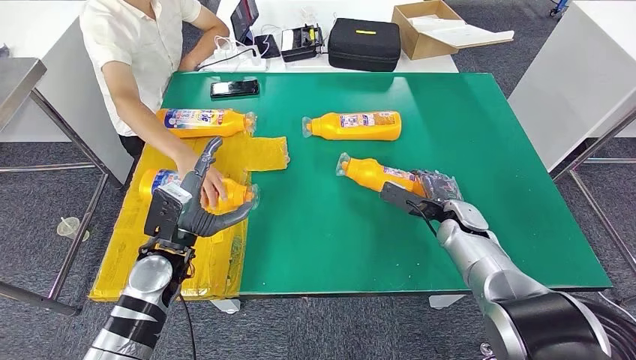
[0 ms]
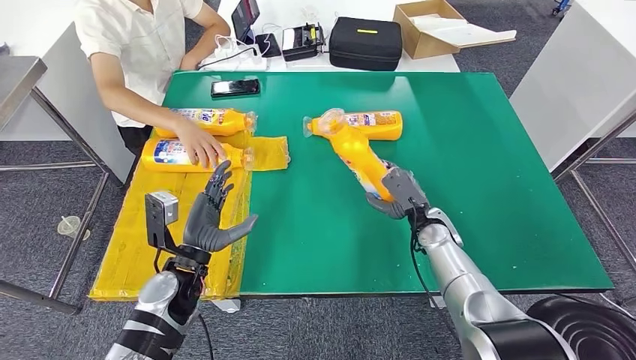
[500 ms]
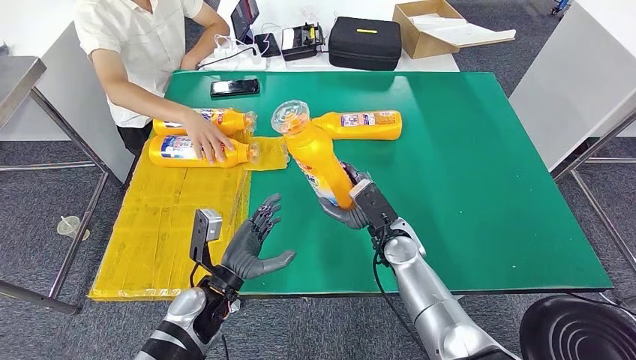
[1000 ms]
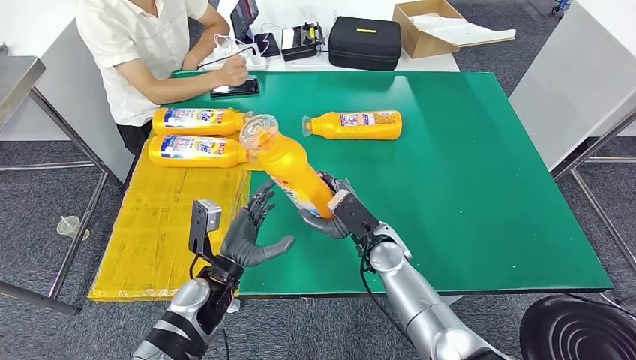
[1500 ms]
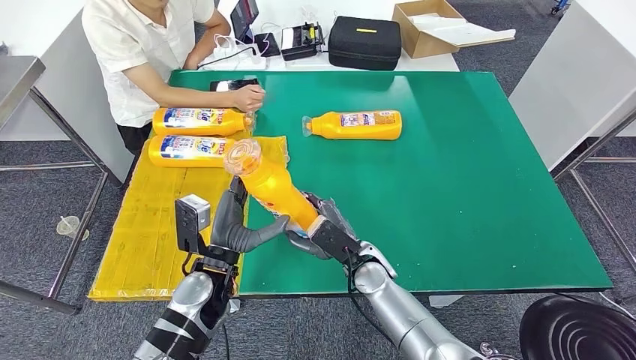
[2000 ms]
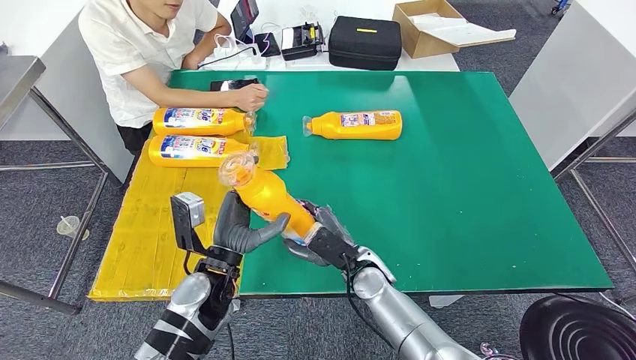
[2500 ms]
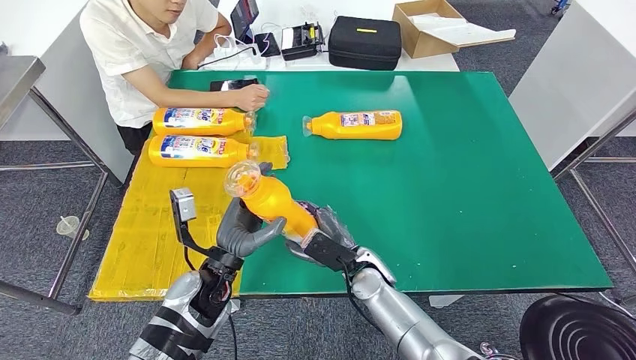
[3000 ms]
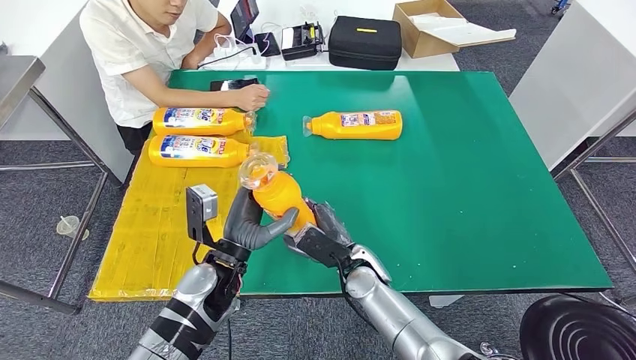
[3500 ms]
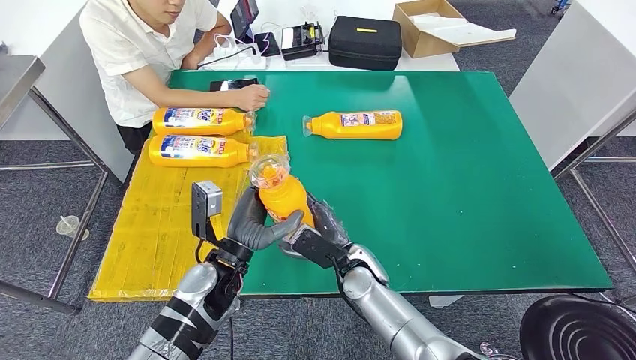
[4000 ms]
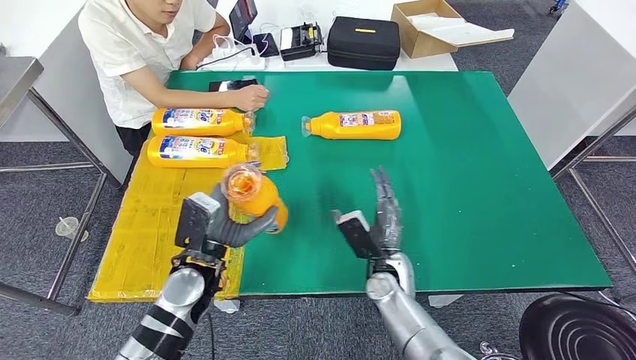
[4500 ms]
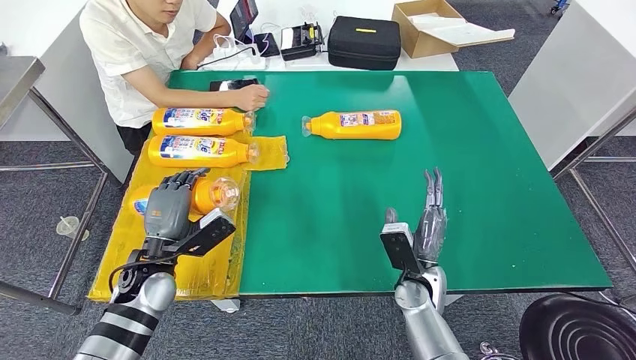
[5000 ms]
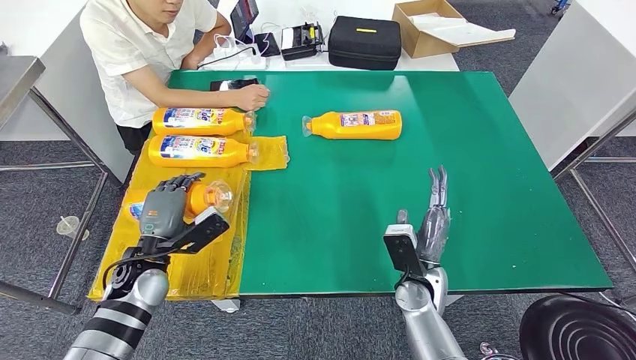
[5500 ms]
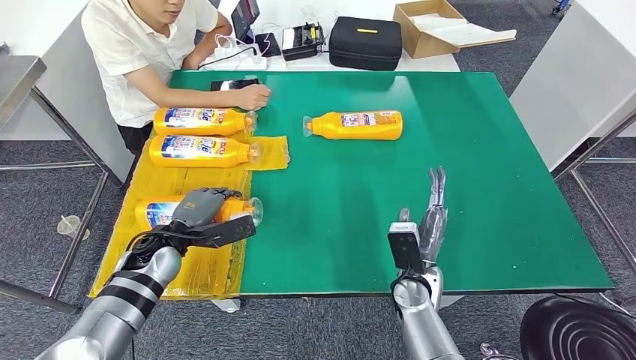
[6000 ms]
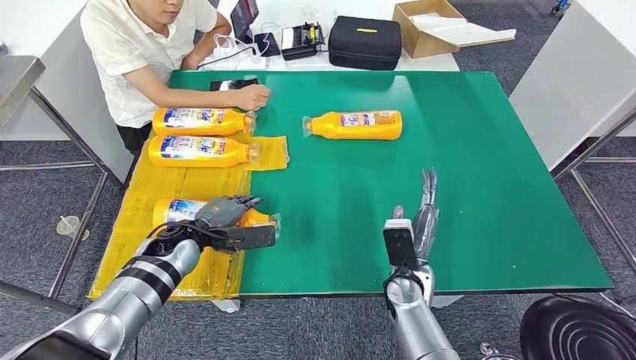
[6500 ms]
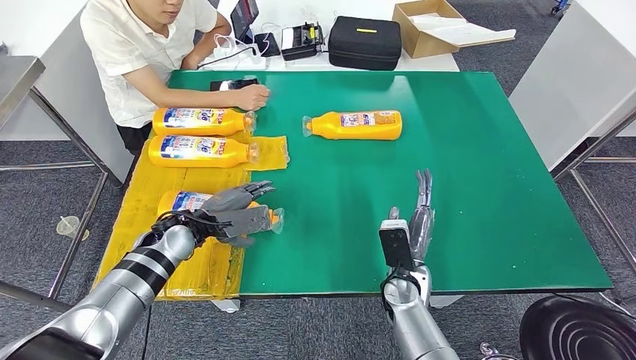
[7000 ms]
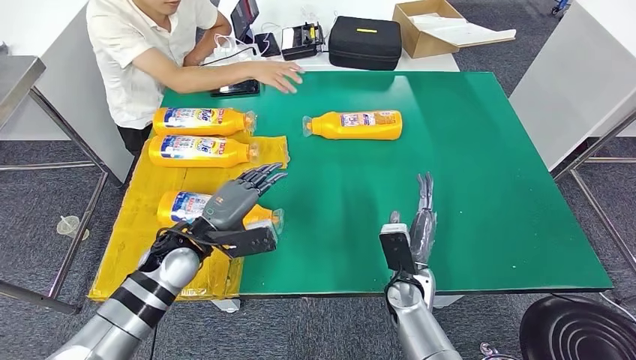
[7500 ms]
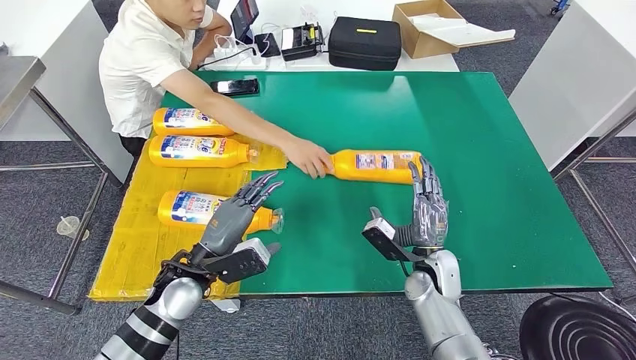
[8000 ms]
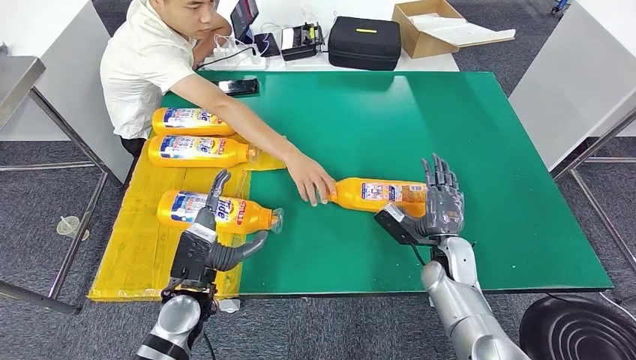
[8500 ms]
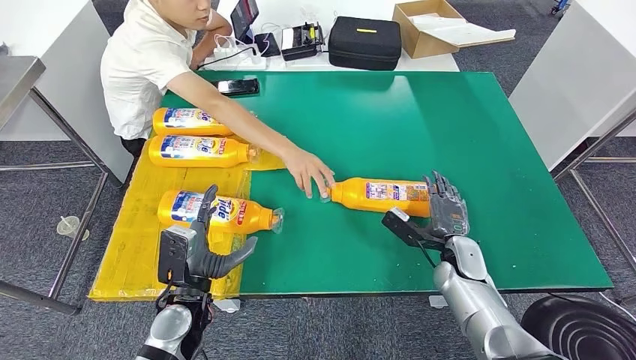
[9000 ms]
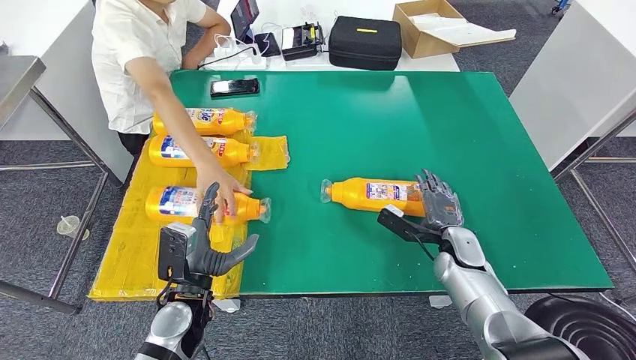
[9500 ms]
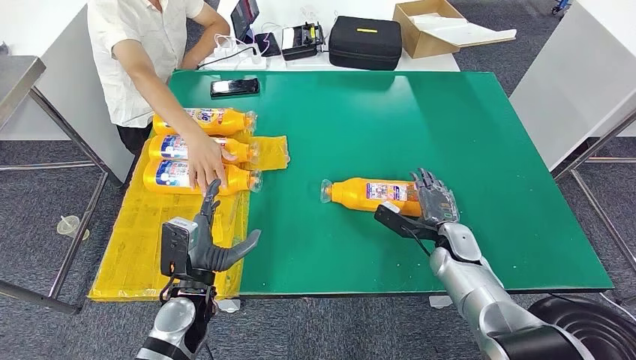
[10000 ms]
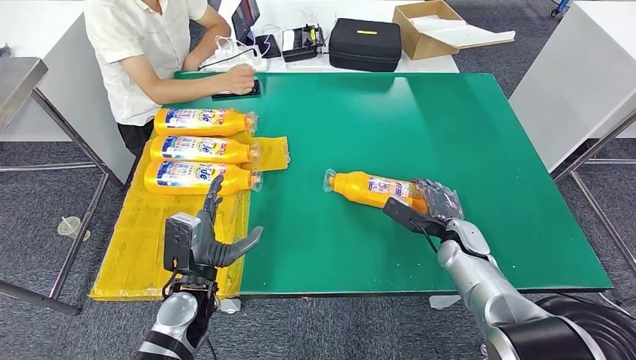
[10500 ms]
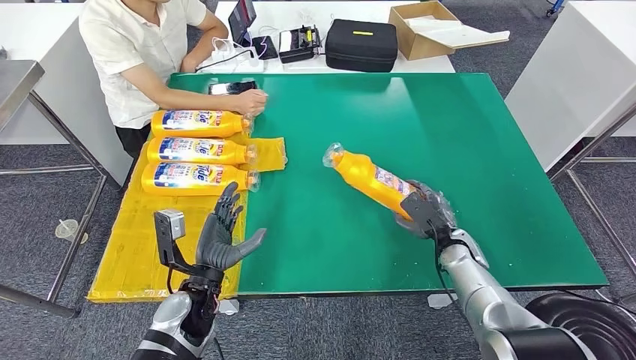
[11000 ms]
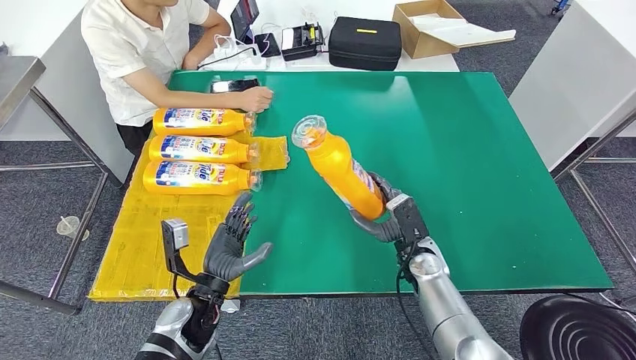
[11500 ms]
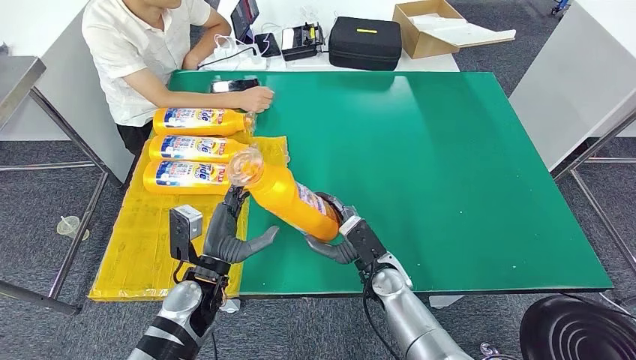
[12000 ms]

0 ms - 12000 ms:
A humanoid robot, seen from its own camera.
Step, 2000 ms - 5500 ms: Flip the fast-moving consumer goods bottle to the front side.
Step, 6000 ms - 11500 ms: Pick up the fast-moving consumer goods bottle from the table.
4000 ms - 6000 ms: The left hand heads to the left and forward, covering some 15 cm; the right hand is displaced to the right by some 10 cm.
10000 ms - 12000 ms: The right hand shifts about 15 cm to the left.

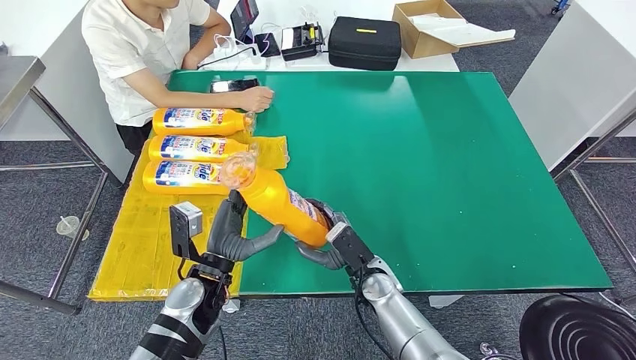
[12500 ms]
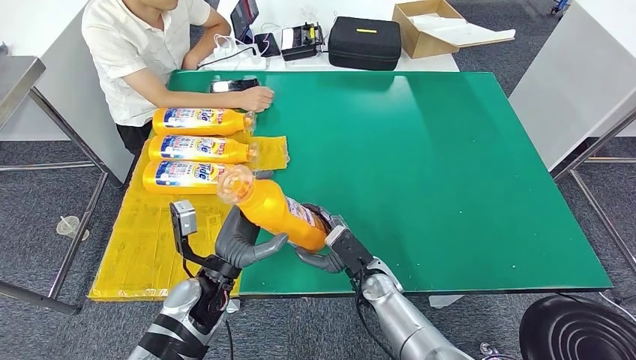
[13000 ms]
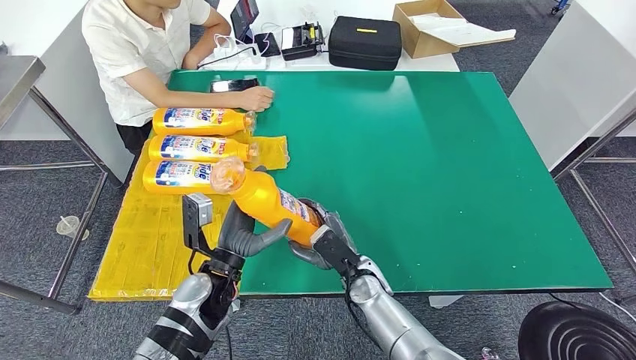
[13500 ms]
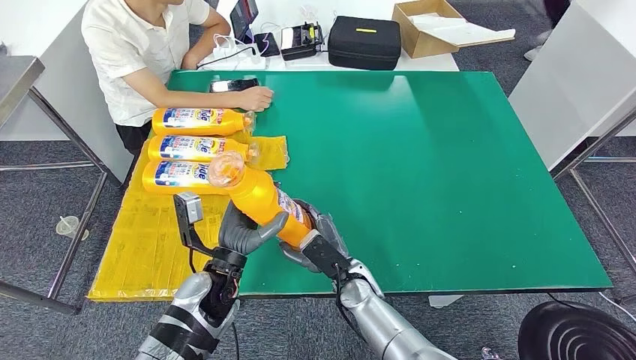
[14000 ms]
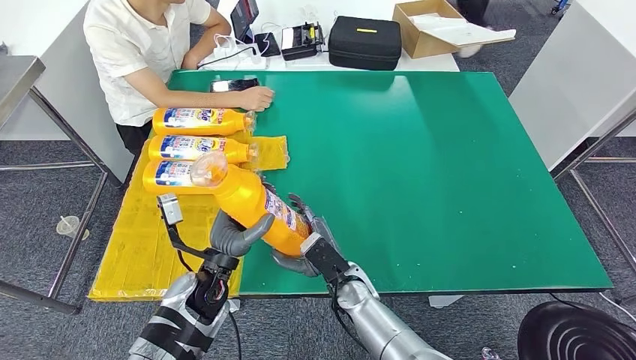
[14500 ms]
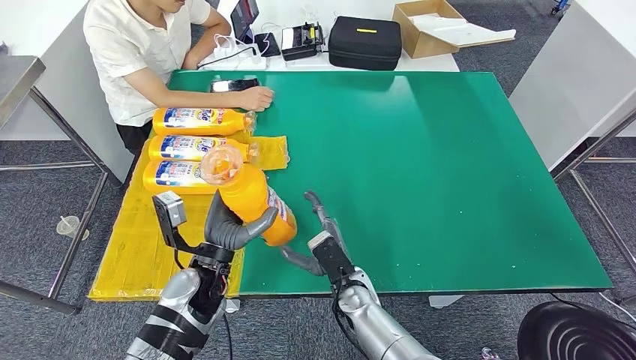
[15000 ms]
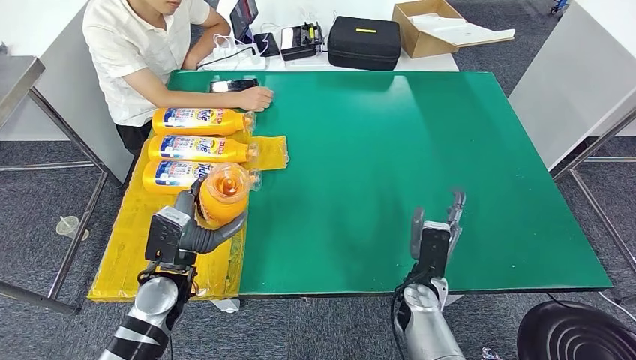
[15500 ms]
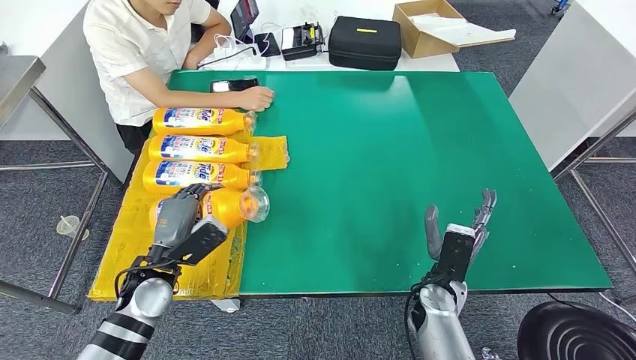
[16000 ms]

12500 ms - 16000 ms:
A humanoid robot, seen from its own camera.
Step, 12500 ms - 16000 ms: Flip the fast-moving consumer goods bottle to the front side.
14500 ms - 16000 ms: The left hand is displaced to the left by roughly 10 cm. Meanwhile the right hand is displaced to the right by approximately 15 cm.

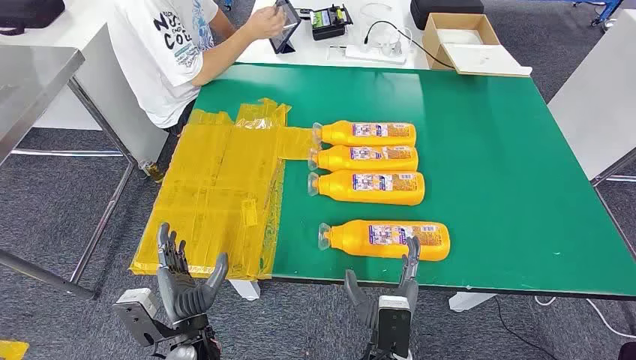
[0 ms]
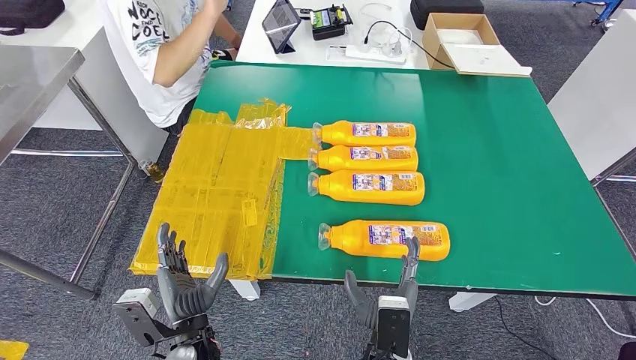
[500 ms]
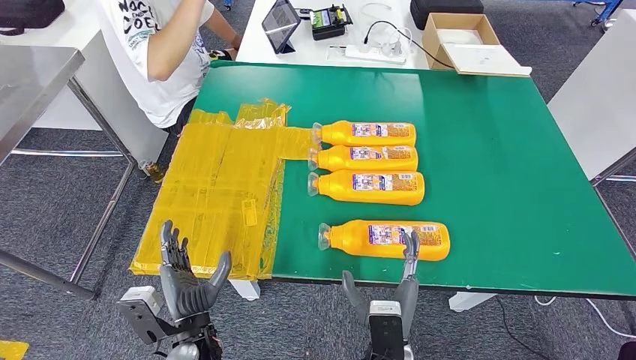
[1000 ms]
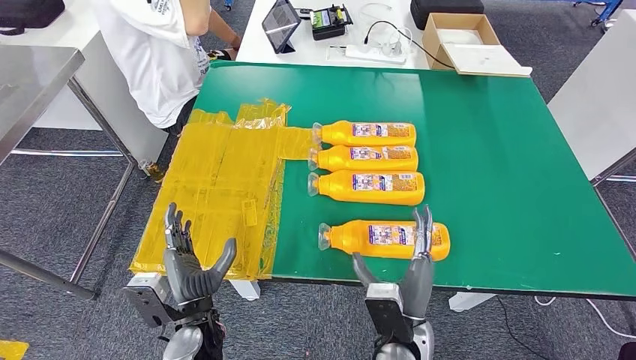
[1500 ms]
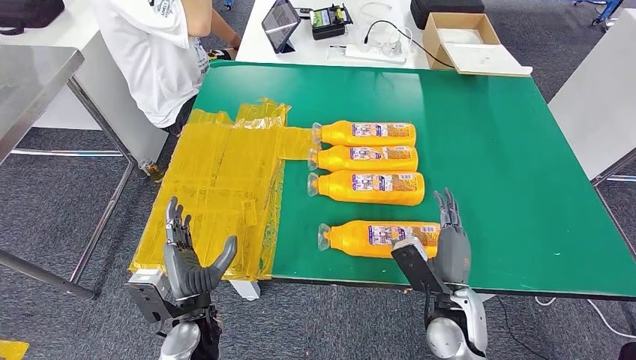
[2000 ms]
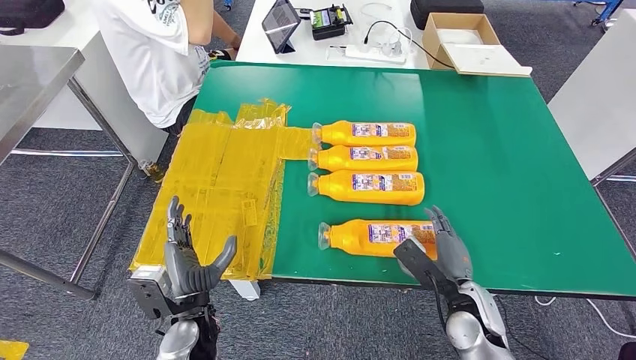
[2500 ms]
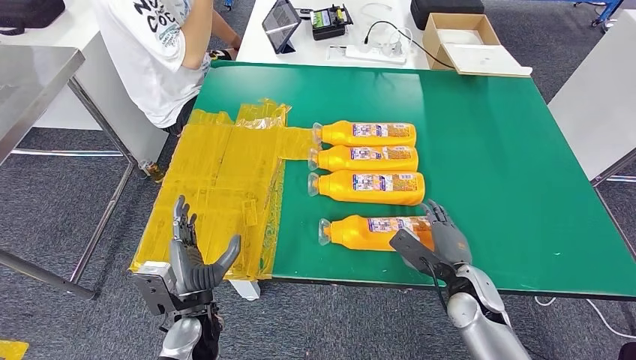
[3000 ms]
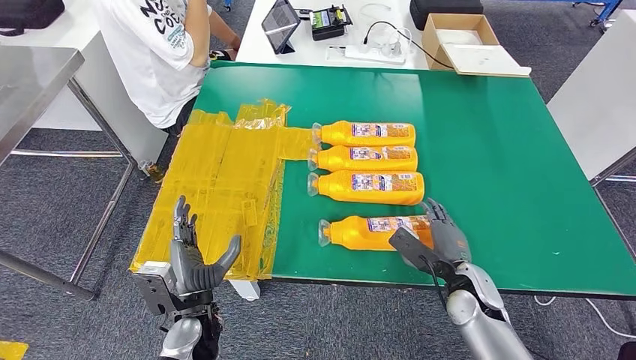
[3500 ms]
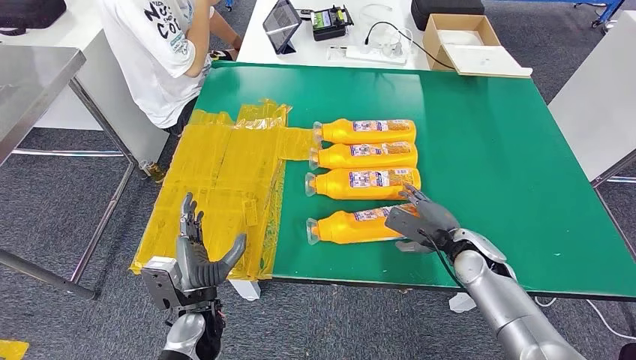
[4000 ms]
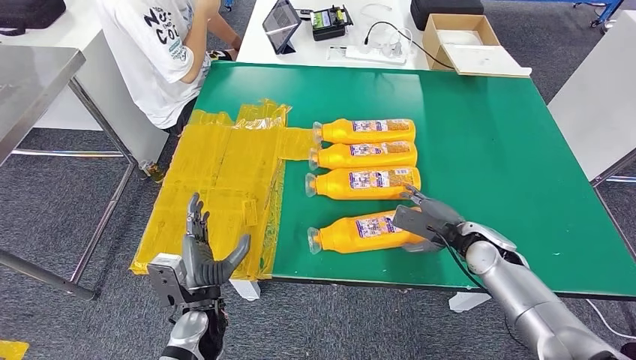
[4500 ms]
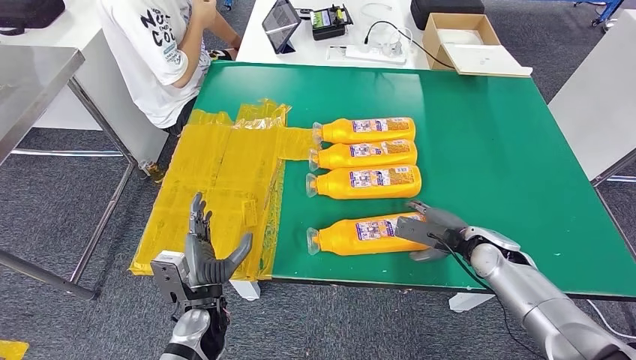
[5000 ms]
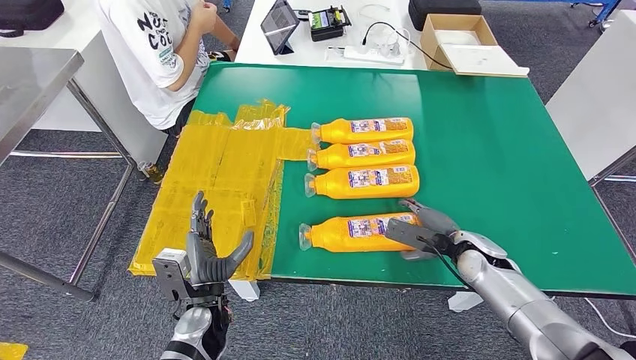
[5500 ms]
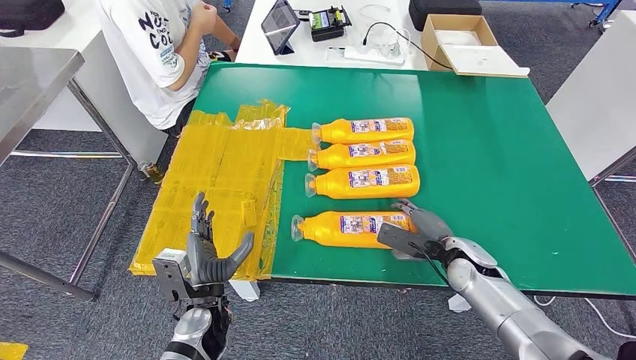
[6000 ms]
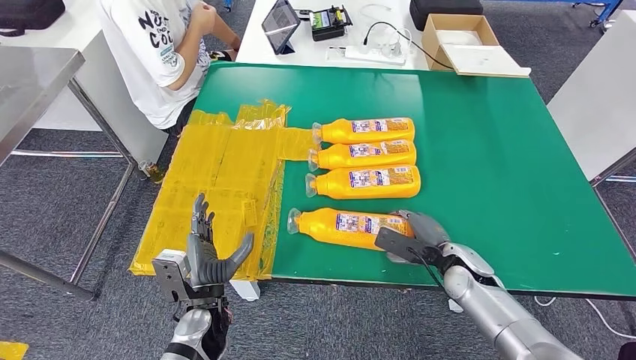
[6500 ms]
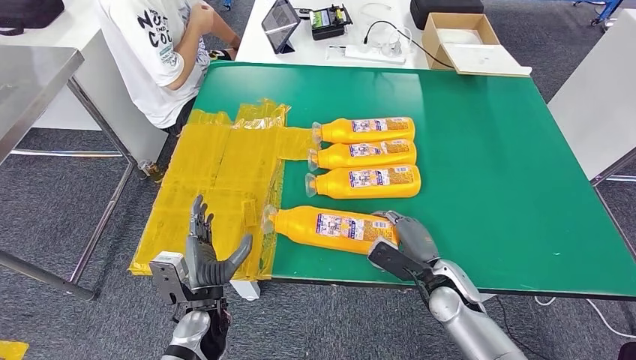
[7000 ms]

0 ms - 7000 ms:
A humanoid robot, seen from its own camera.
2000 ms - 3500 ms: The right hand is displaced to the right and forward by about 10 cm.
3500 ms - 5000 ms: The right hand shifts roughly 5 cm forward.
5000 ms - 7000 ms: The right hand goes approximately 10 cm to the left and backward.
